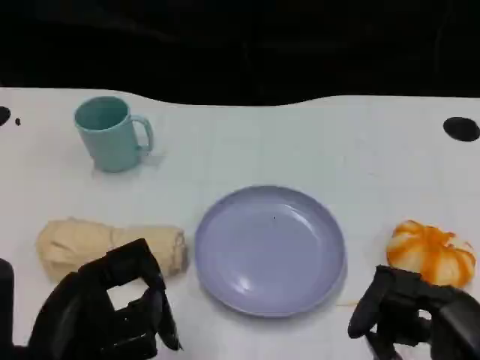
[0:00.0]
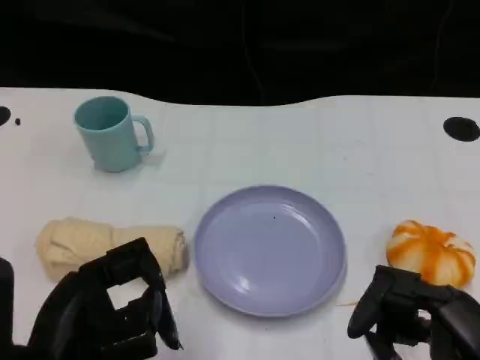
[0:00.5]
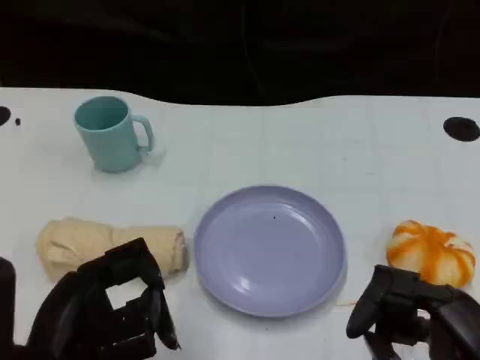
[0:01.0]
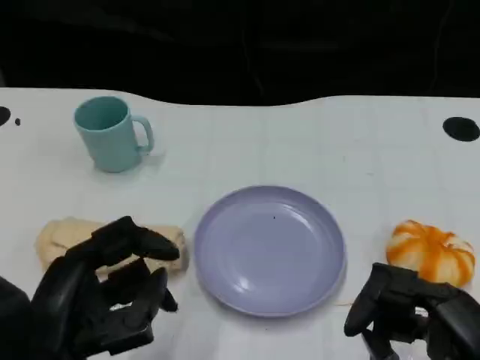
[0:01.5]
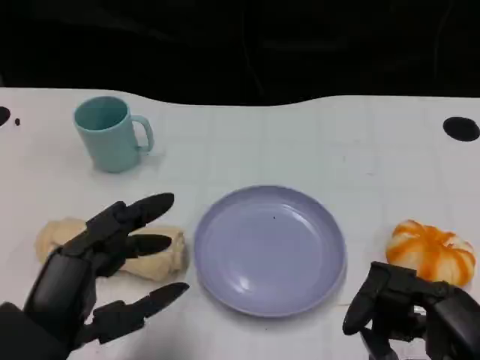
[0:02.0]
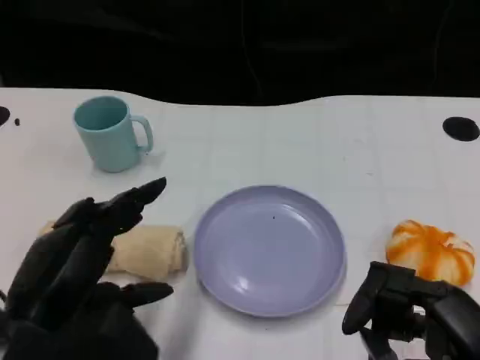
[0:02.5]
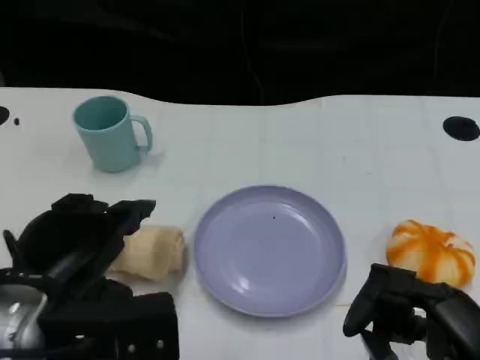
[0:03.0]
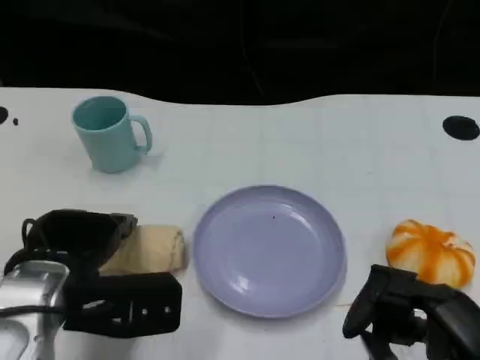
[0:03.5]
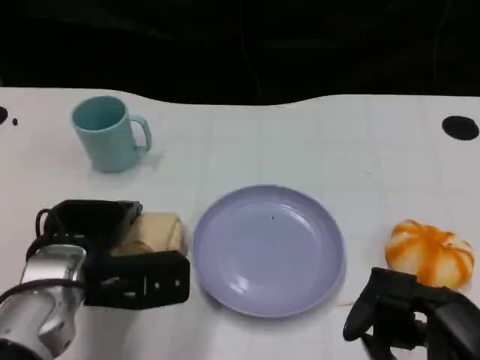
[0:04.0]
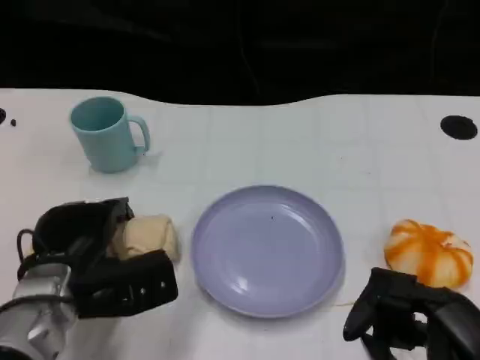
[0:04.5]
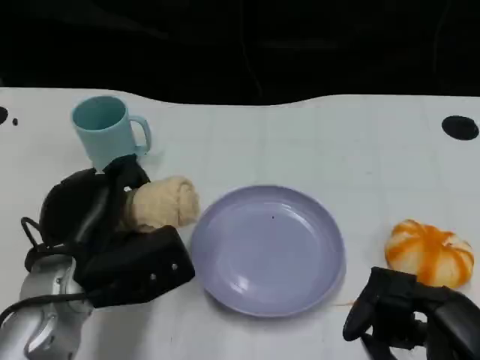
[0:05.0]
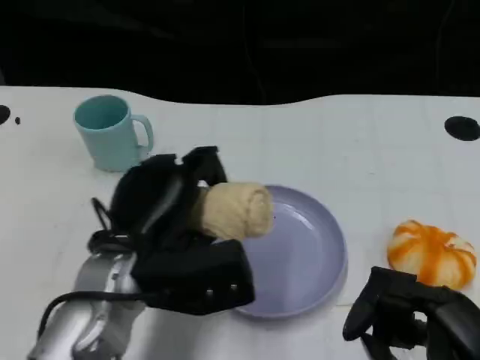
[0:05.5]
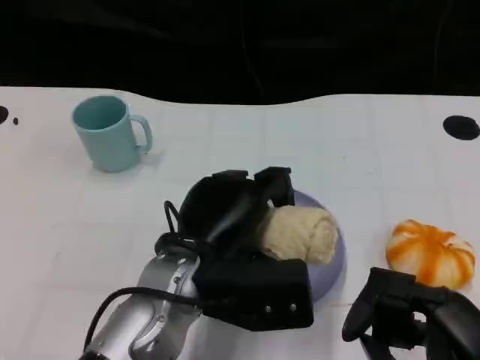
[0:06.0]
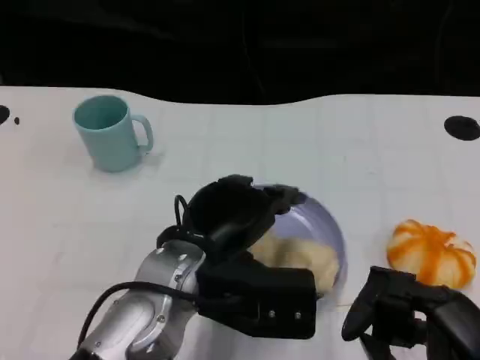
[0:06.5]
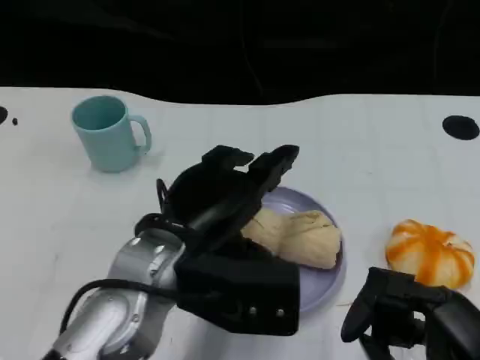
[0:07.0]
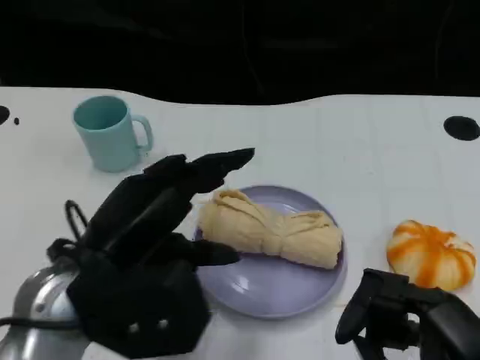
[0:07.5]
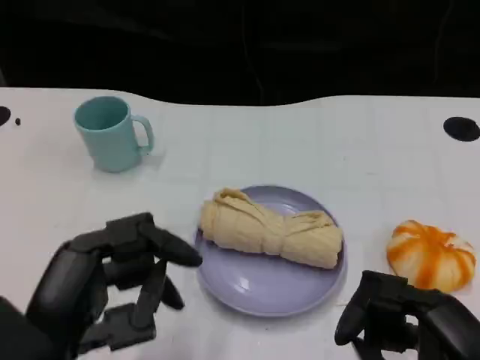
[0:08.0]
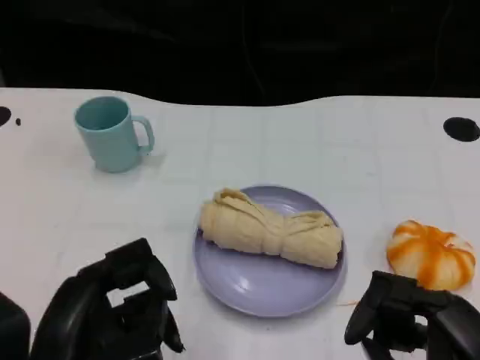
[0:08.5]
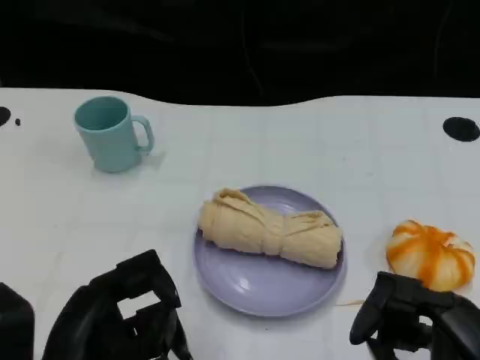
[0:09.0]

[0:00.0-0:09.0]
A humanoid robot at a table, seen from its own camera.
Task of the whole recording: Grasp the towel on the left side of the plate with the left hand and place it into the plate.
0:02.0 to 0:04.5: The left hand moves forward and downward, some 15 cm.
0:04.5 to 0:07.0: The left hand is displaced upward and to the right by approximately 15 cm.
0:07.0 to 0:09.0: The left hand heads backward and to the left, covering approximately 15 cm.

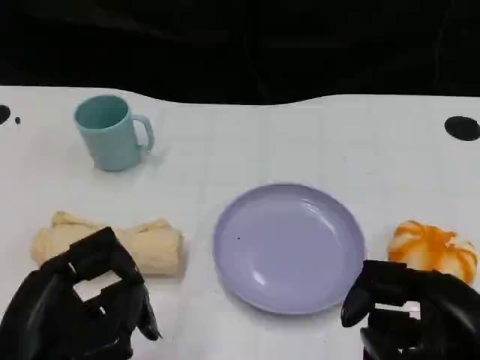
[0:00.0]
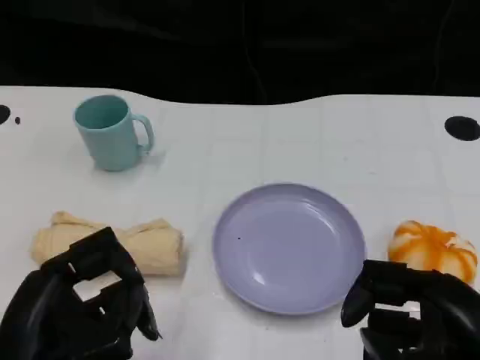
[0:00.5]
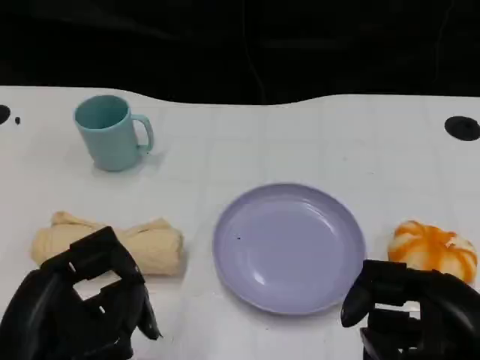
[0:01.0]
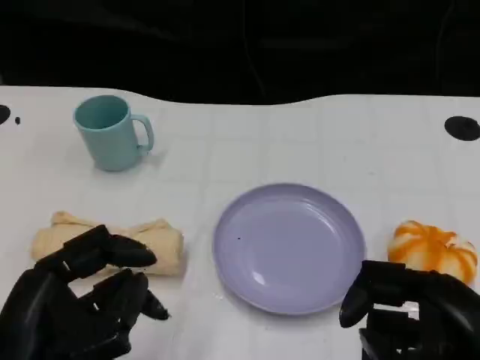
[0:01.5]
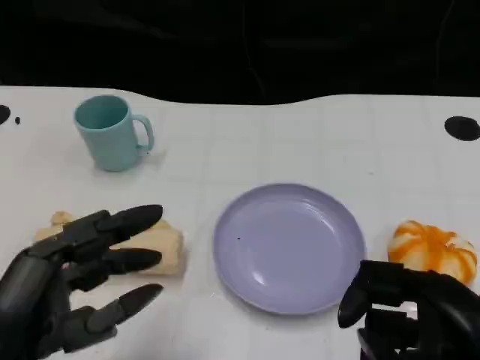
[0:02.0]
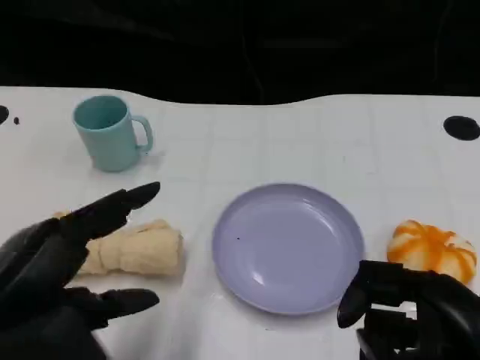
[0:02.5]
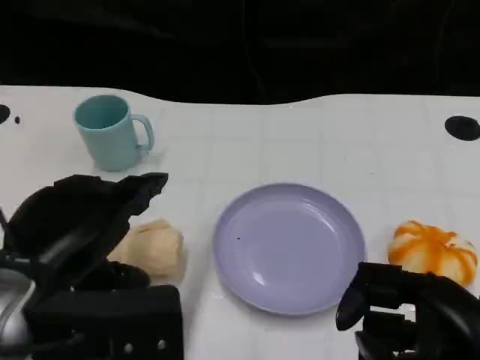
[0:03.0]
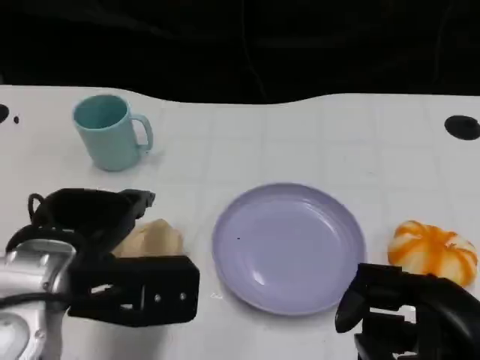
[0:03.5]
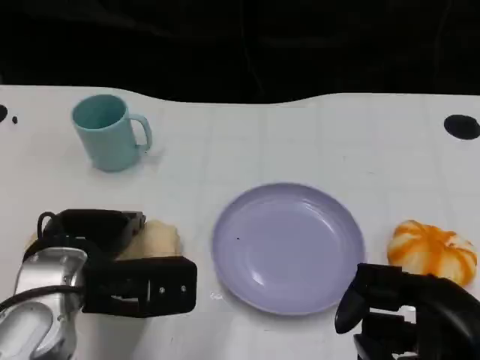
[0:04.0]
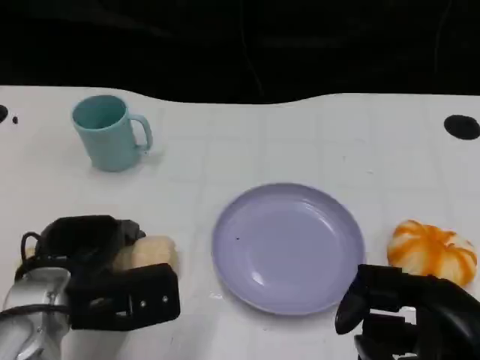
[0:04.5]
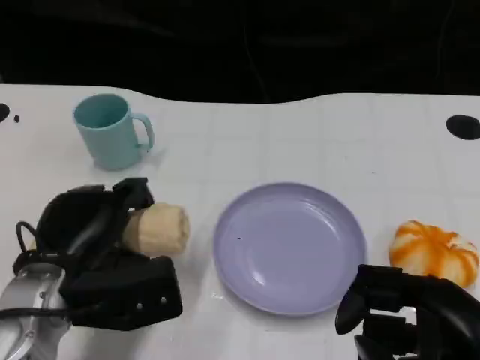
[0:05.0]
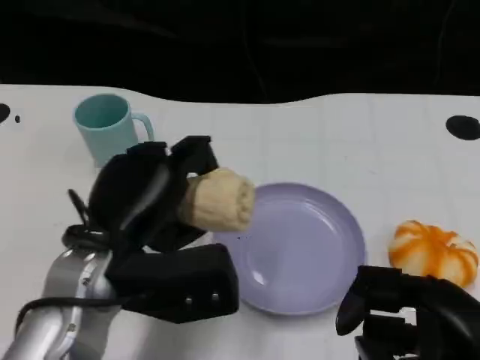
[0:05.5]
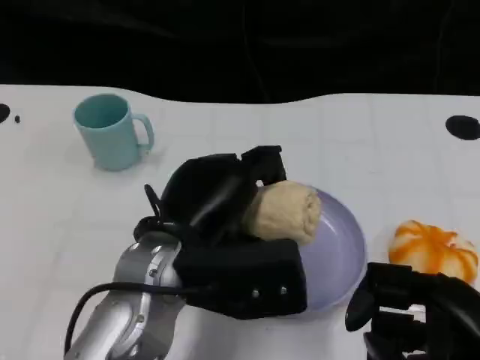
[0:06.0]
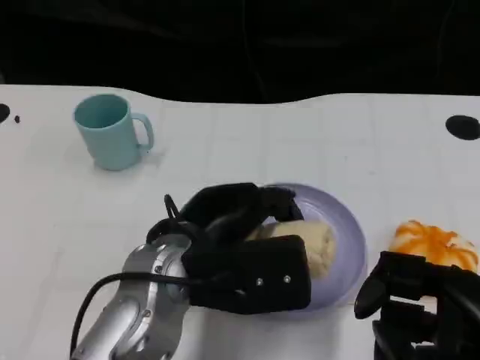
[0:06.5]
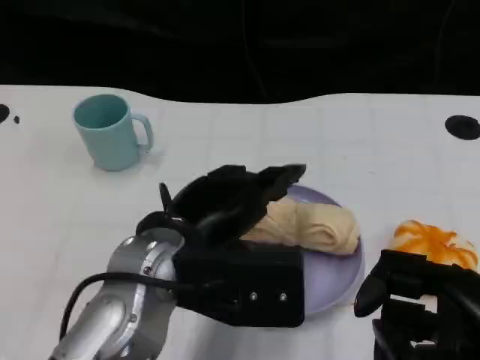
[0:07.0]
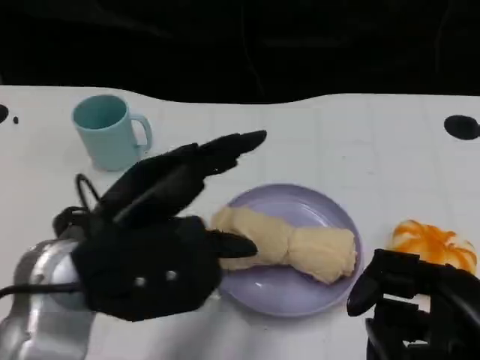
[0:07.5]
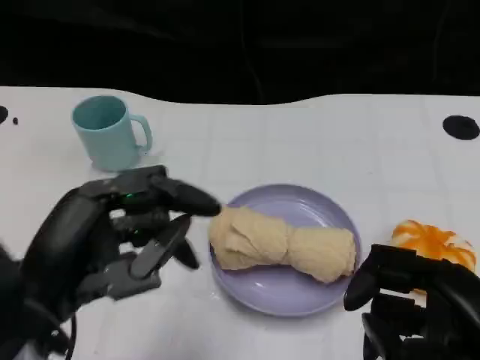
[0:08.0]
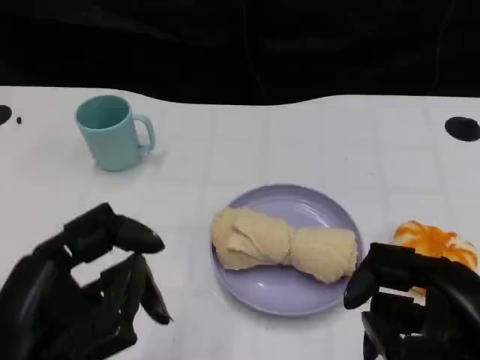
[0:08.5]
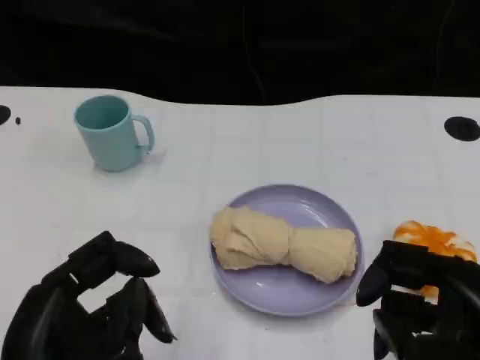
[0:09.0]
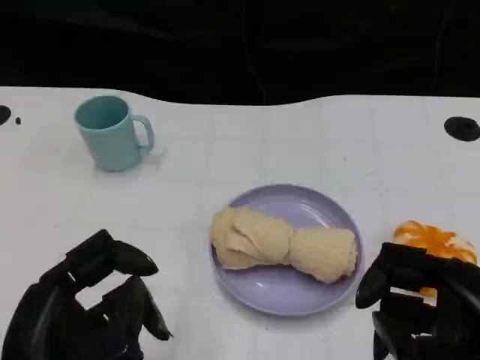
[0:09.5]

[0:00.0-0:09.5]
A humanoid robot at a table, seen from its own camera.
Task of the whole recording: Grasp the towel on the left side of the plate with the left hand and place it into the plate.
0:02.0 to 0:04.0: The left hand travels forward by some 10 cm.
0:04.0 to 0:05.5: The left hand ends up approximately 5 cm from where it was.
0:05.5 to 0:07.5: The left hand moves some 5 cm to the right and comes back.
0:07.5 to 0:09.5: The left hand travels backward and downward by about 10 cm.

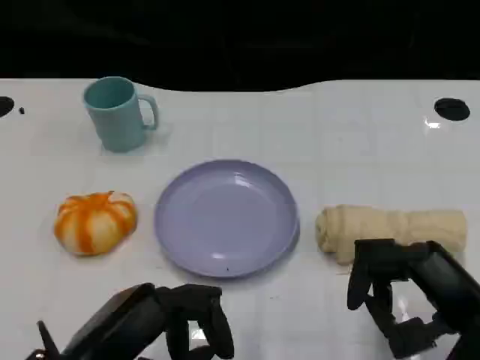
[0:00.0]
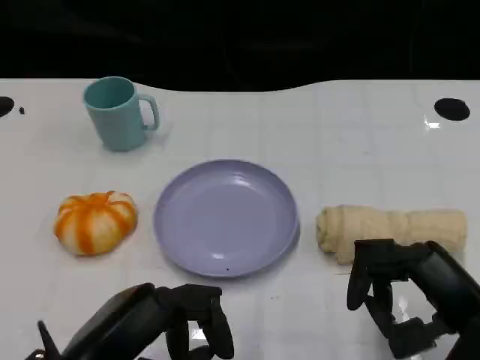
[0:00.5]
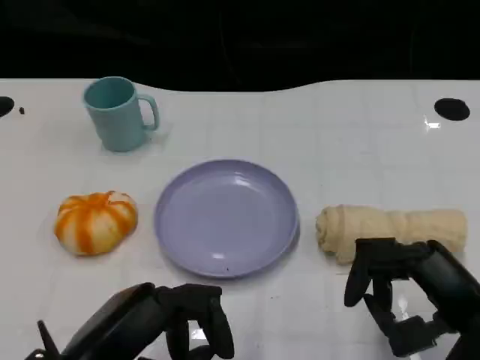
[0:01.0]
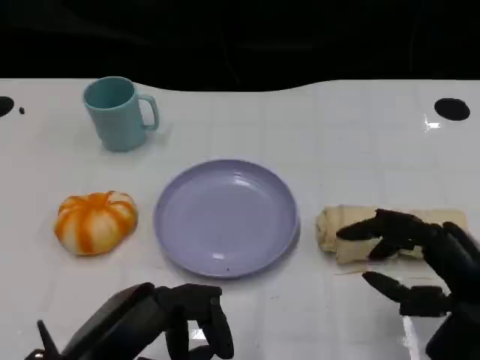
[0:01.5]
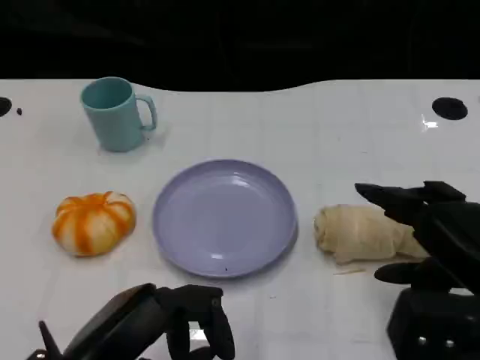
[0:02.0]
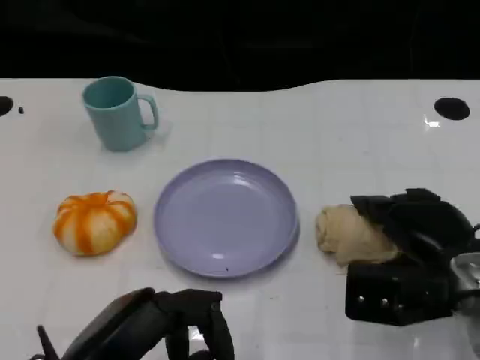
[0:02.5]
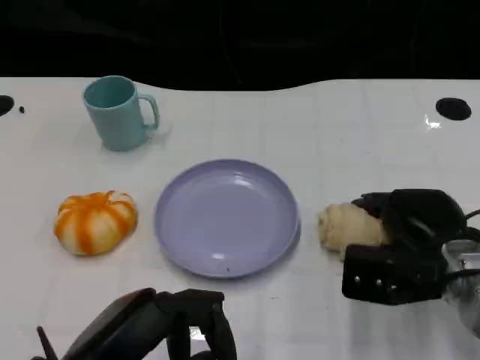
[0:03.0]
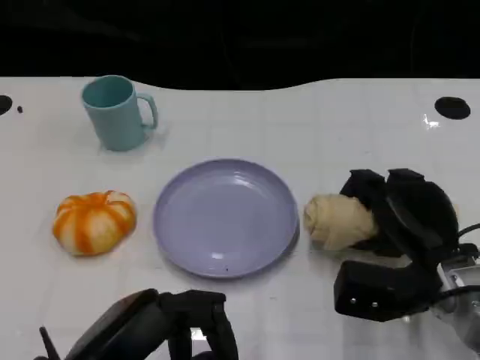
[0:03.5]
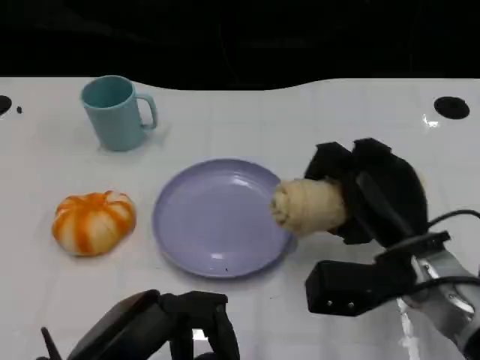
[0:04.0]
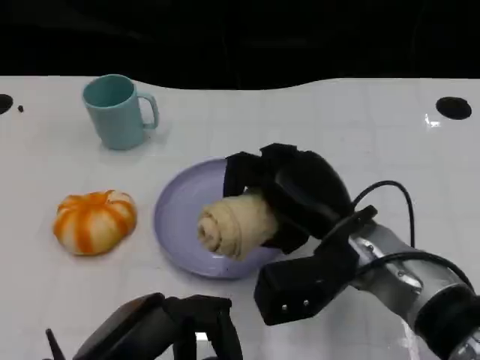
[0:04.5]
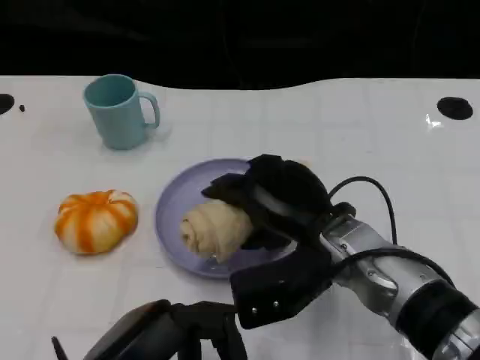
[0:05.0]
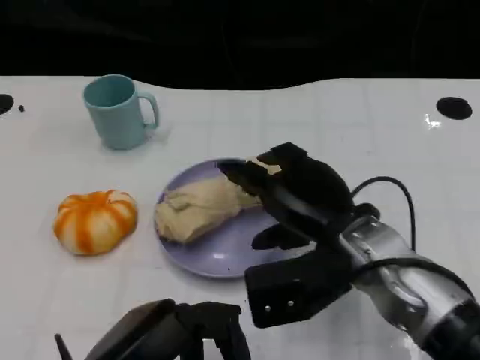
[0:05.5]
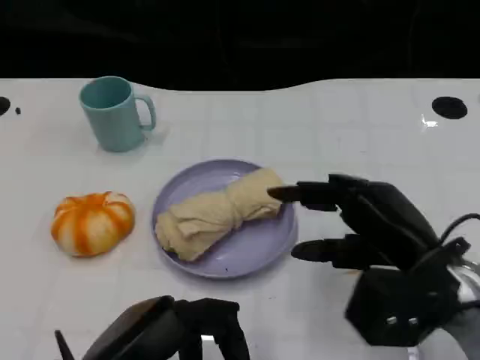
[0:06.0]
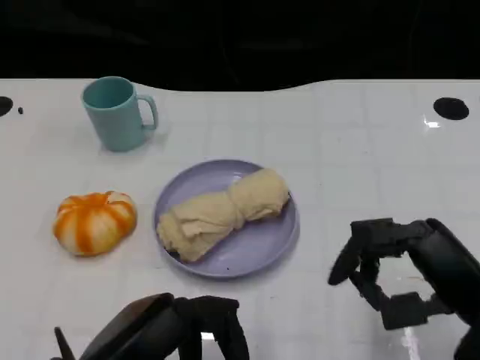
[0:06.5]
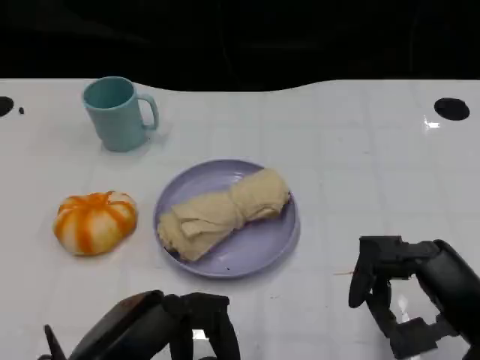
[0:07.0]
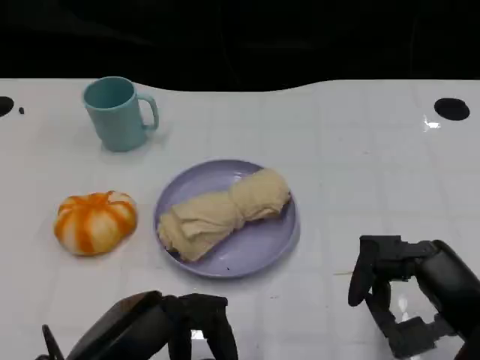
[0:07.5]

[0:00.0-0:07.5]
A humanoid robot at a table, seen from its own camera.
Task of the whole recording: Grasp the towel on the left side of the plate with the left hand and place it into the plate.
0:02.0 to 0:04.0: The right hand goes about 10 cm to the left and forward.
0:04.0 to 0:05.5: The right hand changes place by some 5 cm.
0:05.5 to 0:07.5: The right hand travels to the right and backward by roughly 15 cm.
